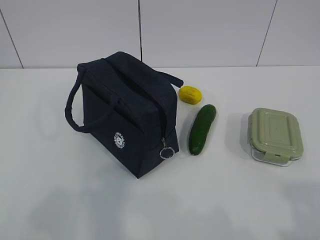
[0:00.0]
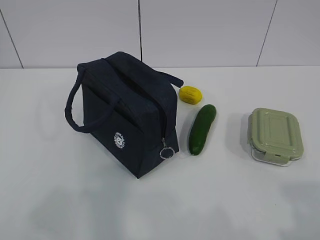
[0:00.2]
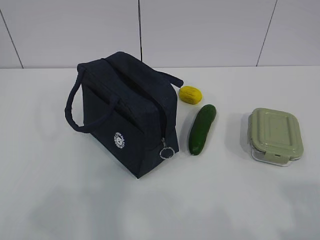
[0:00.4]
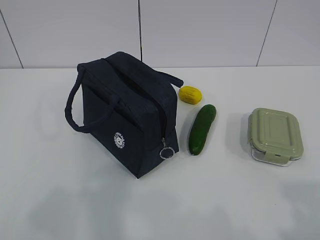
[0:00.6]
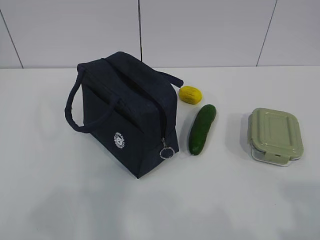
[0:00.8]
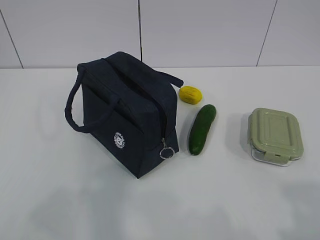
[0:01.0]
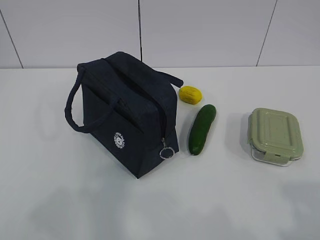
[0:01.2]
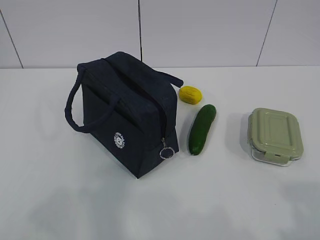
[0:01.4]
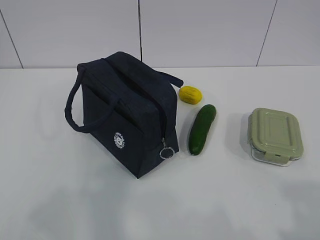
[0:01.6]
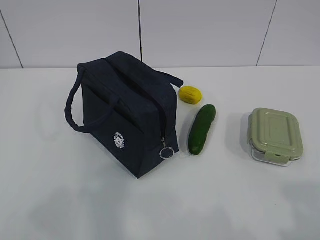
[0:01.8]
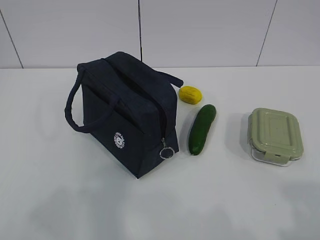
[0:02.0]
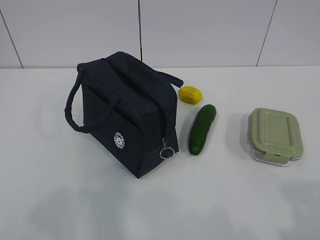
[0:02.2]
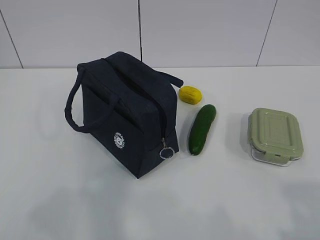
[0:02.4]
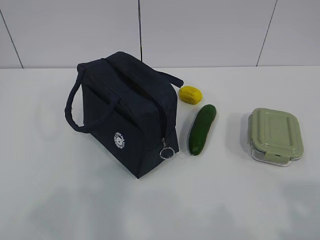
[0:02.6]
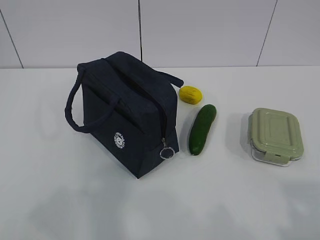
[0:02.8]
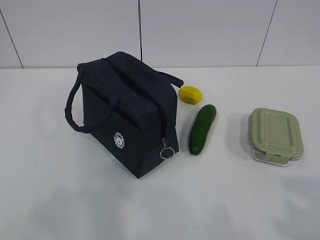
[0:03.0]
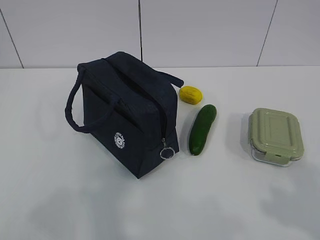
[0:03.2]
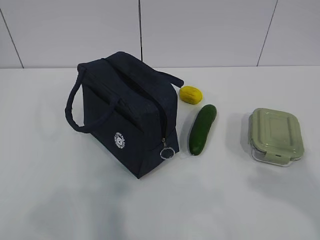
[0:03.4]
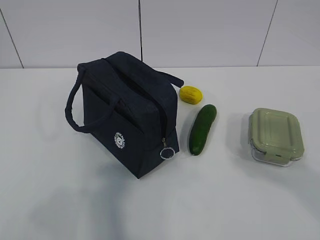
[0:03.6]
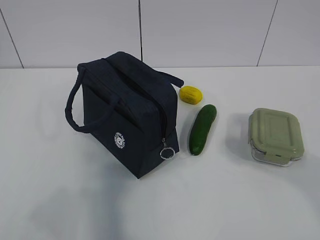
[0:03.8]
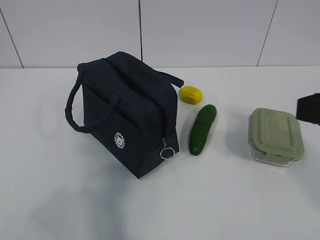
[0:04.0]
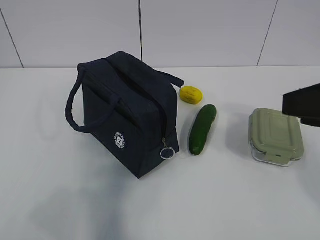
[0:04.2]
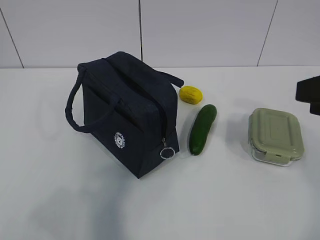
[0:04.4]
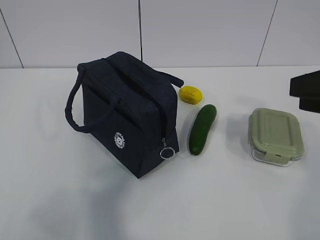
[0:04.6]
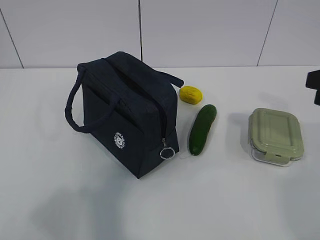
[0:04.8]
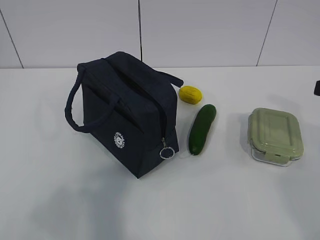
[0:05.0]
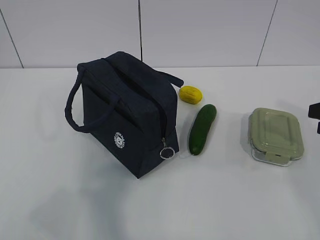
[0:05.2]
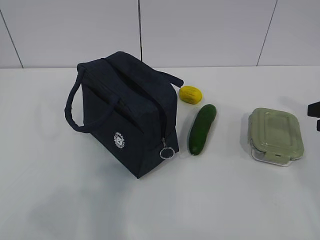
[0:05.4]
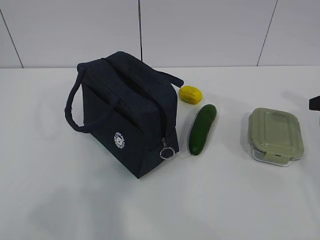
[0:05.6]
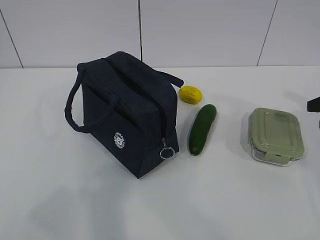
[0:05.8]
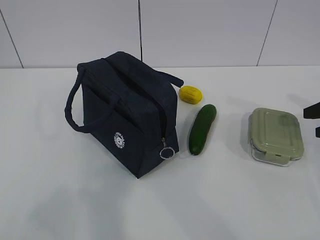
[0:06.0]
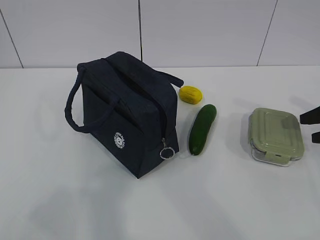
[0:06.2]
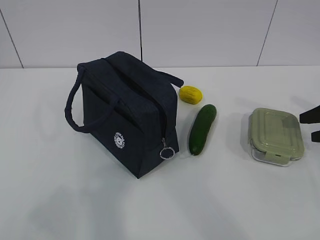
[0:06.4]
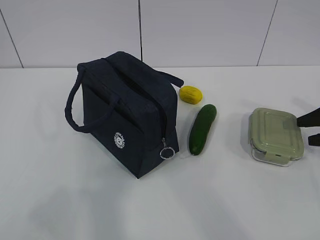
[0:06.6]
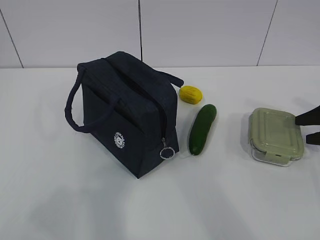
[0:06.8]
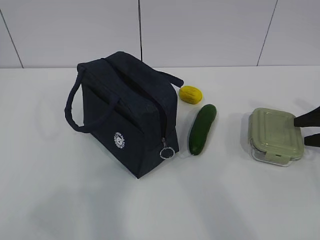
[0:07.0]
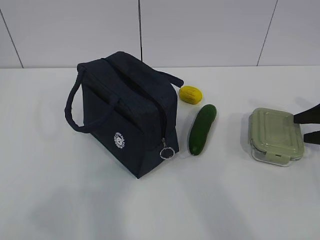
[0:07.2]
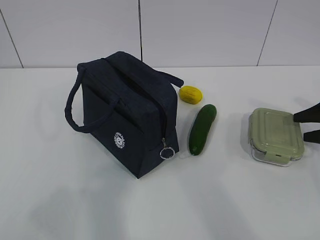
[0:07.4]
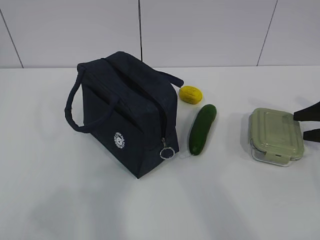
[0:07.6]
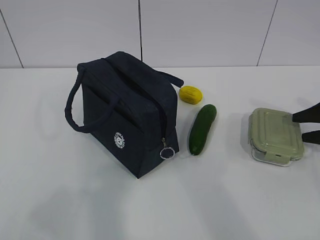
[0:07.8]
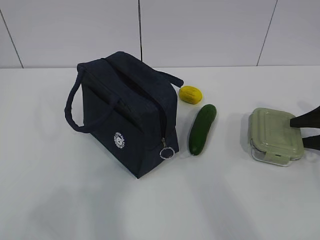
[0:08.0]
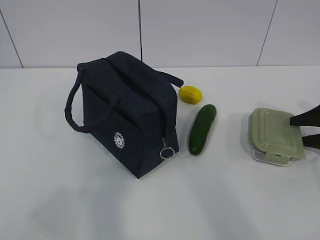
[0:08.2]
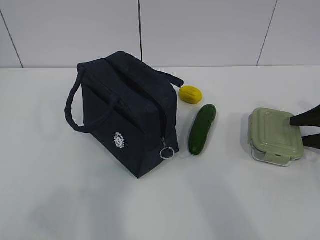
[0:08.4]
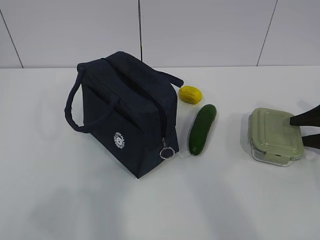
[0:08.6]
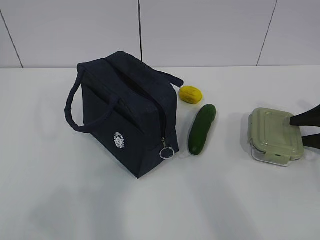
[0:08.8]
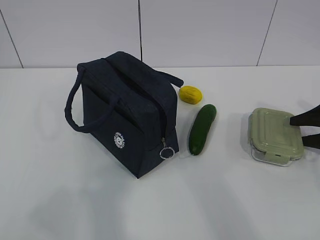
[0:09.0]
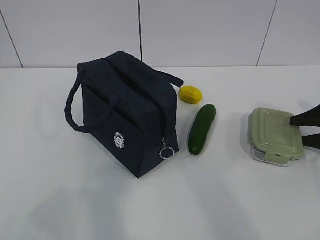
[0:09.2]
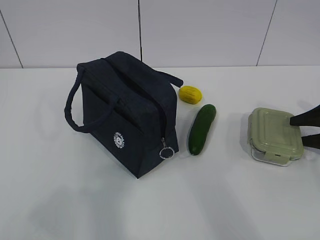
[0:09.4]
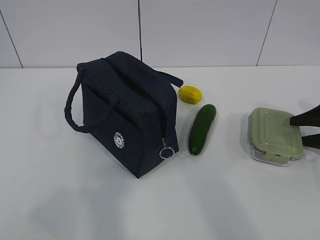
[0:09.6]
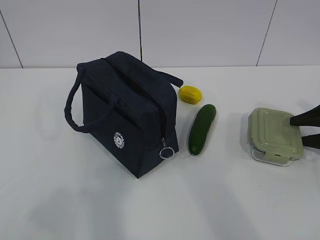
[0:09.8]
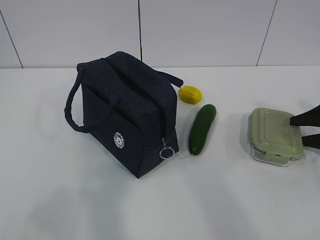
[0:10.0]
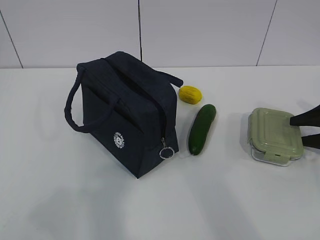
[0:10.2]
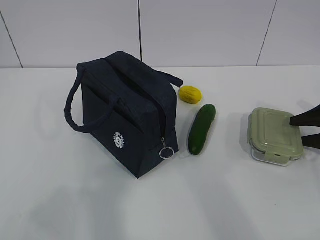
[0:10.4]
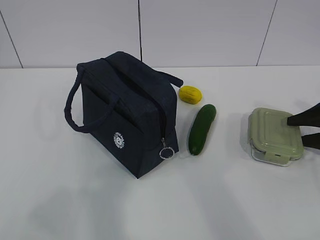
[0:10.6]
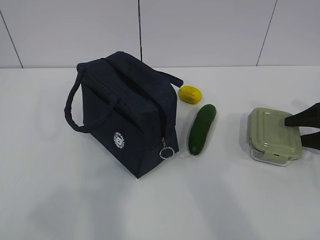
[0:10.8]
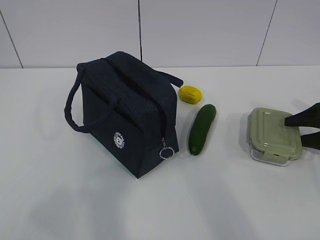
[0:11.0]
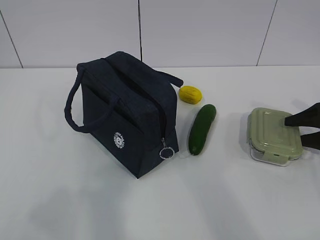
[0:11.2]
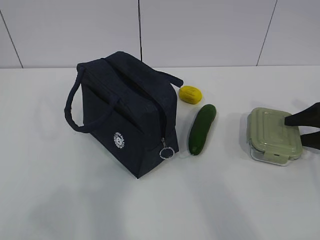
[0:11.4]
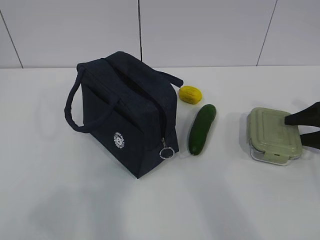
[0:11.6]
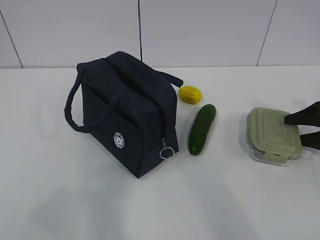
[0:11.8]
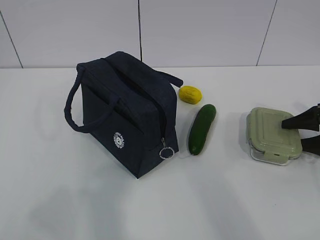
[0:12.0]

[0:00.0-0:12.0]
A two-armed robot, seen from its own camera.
0:03.0 to 0:04.4: The right gripper goes about 20 cm forward.
0:04.4 to 0:06.0: The right gripper moves forward, to the right and downward, roughly 25 cm.
0:09.0 to 0:10.4: Both grippers stay put.

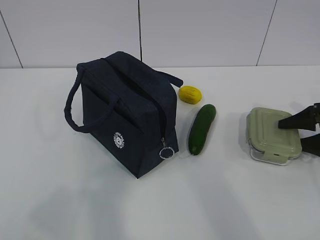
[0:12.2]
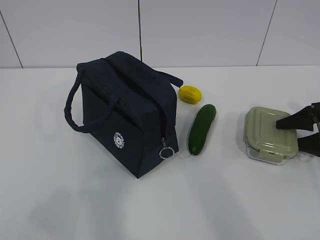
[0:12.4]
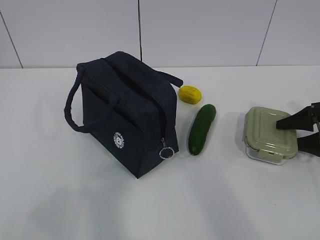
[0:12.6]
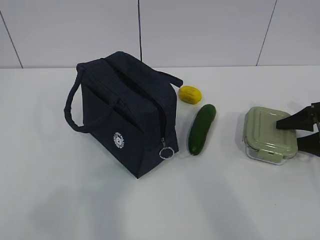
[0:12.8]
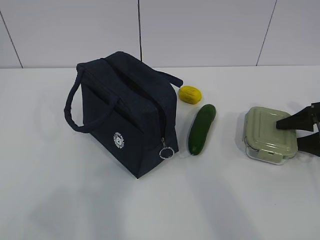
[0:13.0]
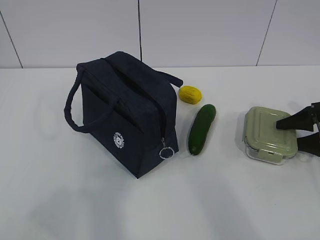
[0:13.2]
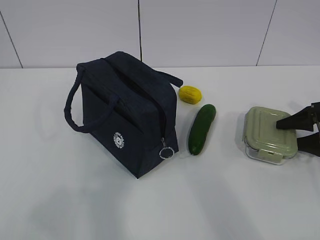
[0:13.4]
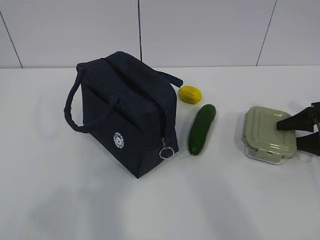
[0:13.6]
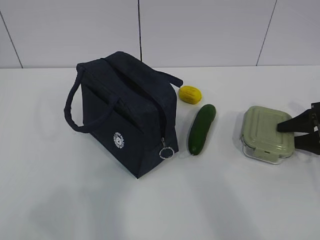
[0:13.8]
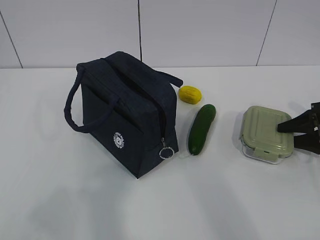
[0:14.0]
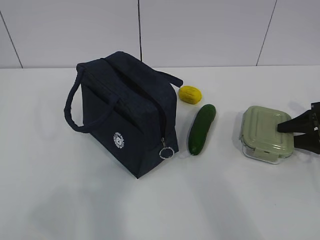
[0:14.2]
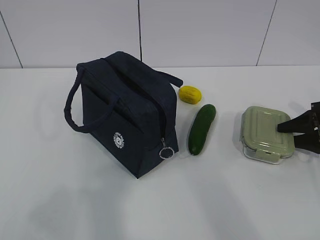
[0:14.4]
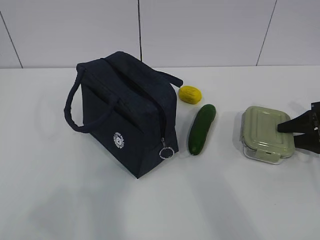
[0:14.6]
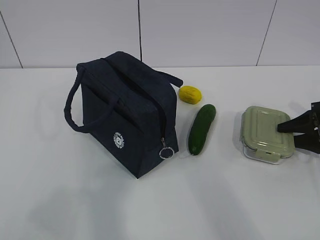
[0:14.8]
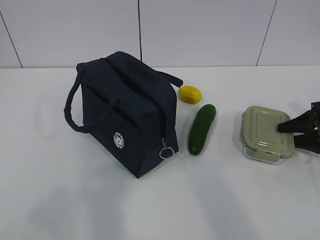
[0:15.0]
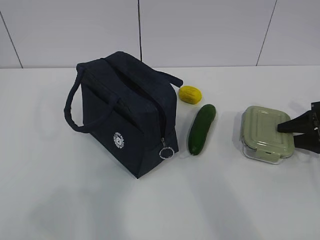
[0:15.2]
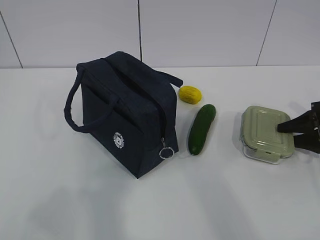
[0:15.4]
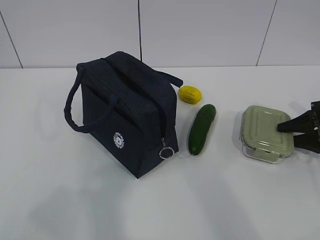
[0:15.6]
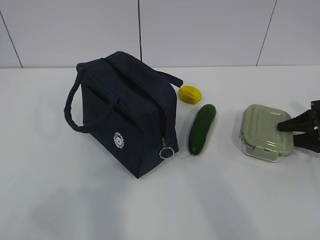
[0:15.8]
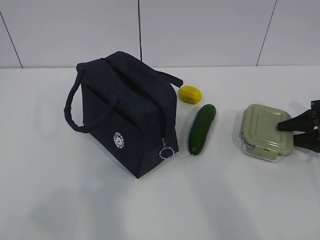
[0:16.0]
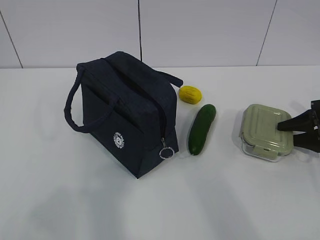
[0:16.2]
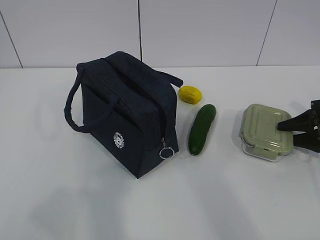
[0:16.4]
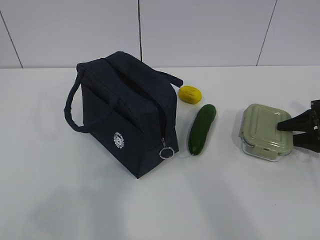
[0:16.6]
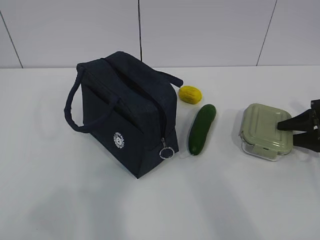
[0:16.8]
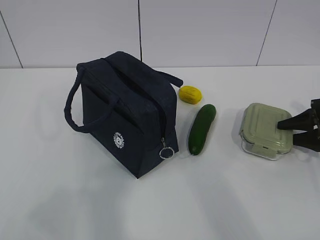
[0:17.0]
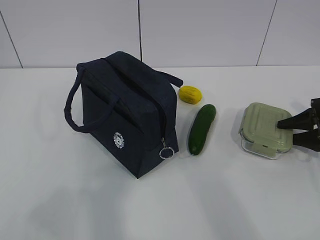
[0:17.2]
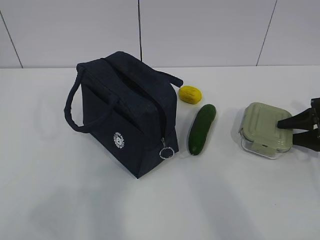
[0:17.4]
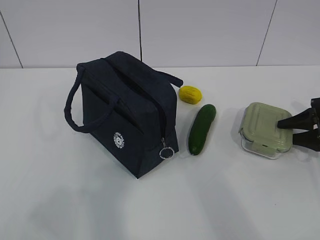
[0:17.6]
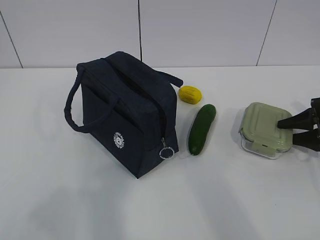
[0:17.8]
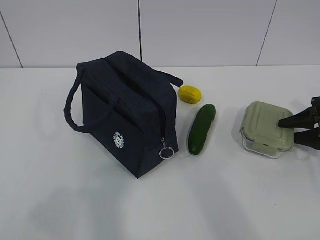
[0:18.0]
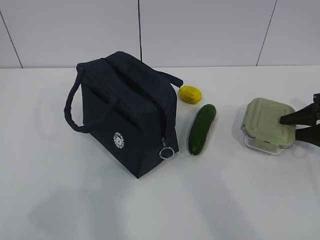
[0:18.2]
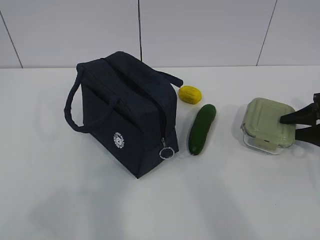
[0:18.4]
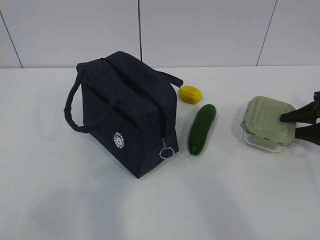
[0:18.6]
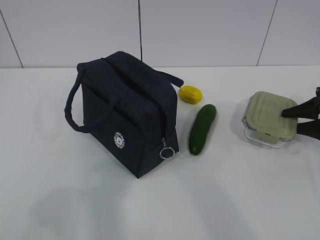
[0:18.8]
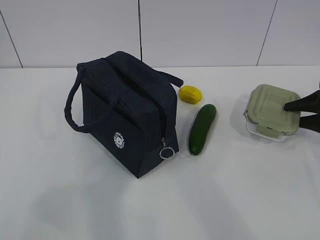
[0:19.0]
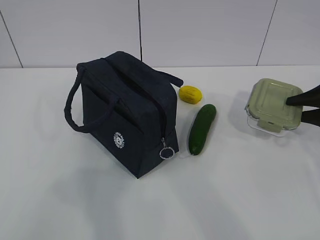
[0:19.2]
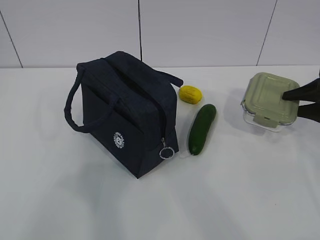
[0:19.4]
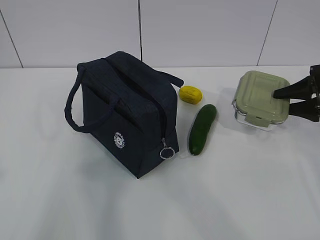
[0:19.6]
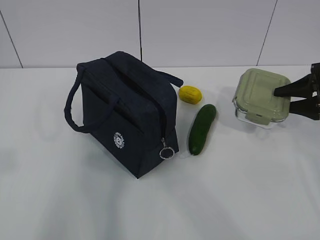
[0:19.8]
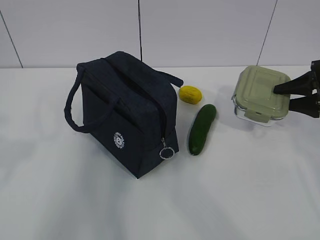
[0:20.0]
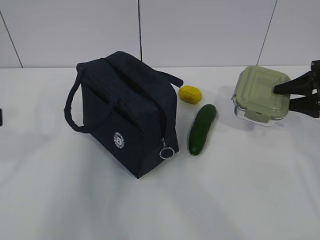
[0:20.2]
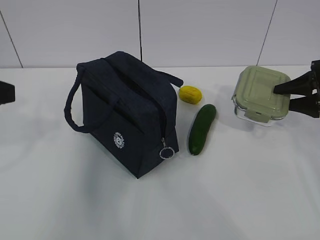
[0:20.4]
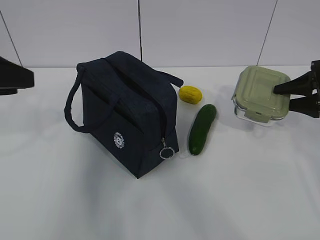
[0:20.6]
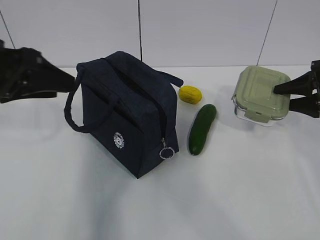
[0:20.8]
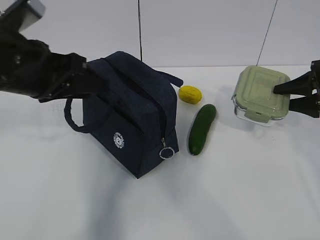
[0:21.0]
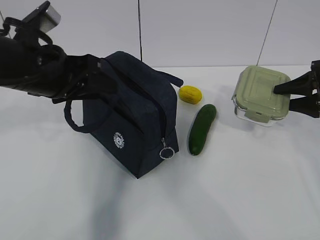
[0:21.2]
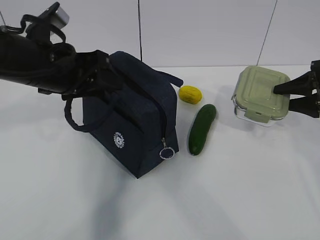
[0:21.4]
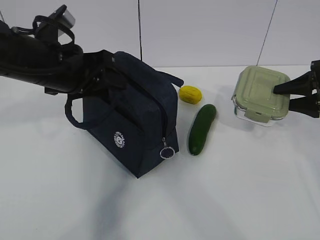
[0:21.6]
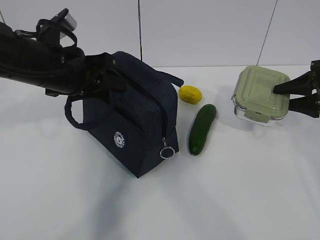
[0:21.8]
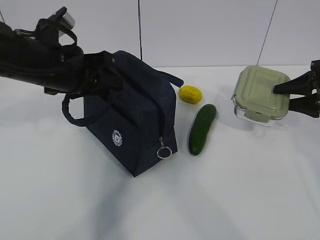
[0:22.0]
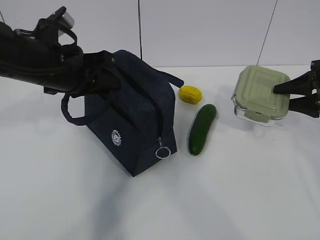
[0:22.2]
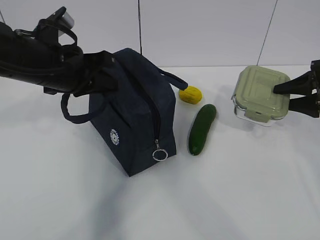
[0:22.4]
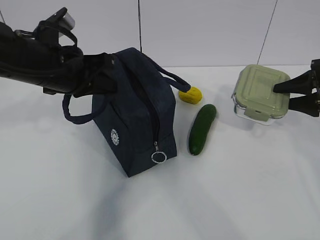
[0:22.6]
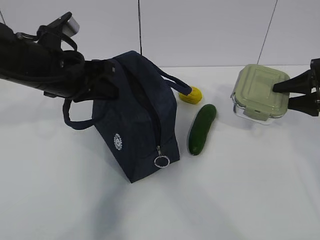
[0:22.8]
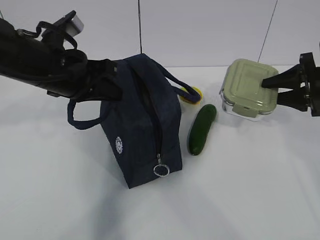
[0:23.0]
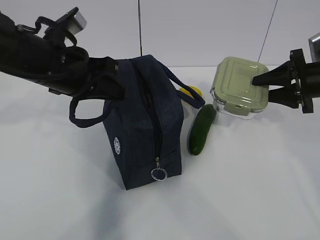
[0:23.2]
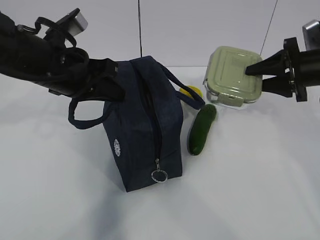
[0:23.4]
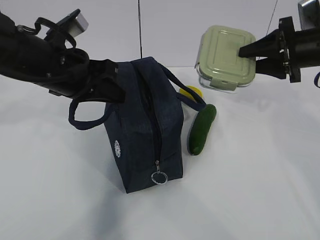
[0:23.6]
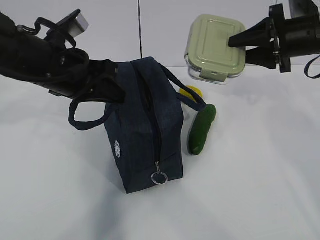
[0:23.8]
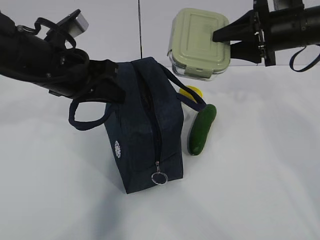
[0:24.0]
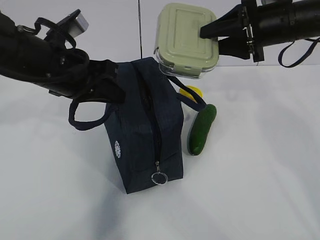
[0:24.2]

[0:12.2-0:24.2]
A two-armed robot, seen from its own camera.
Step, 0:12.4 to 0:20.6: Grab the lunch bag with your left hand.
Step, 0:20.8 to 0:24.0: Place it into the bag with your right hand.
0:12.2 to 0:16.6: Neither gripper changes place.
0:16.6 to 0:18.2: The two grippers keep their place.
0:18.2 to 0:19.8: The left gripper goes roughly 10 cm forward; the right gripper goes approximately 5 cm upward.
0:19.8 to 0:21.2: The left gripper shifts some 25 cm forward and to the right.
0:21.2 to 0:22.6: The left gripper closes up.
0:22.6 to 0:24.2: The right gripper goes about 20 cm to the left and upward.
